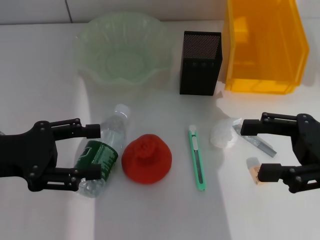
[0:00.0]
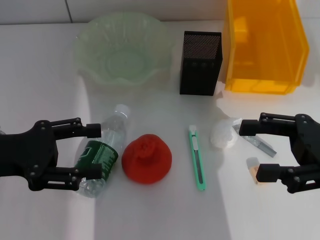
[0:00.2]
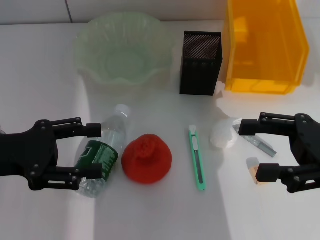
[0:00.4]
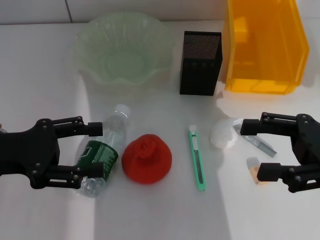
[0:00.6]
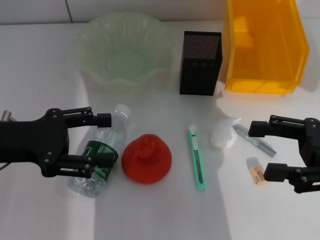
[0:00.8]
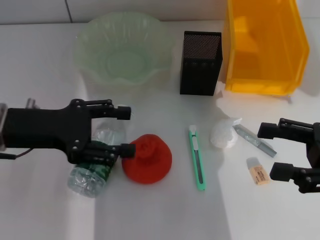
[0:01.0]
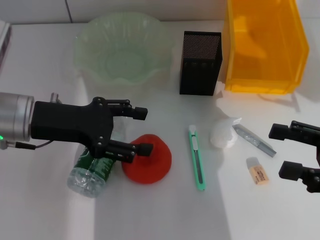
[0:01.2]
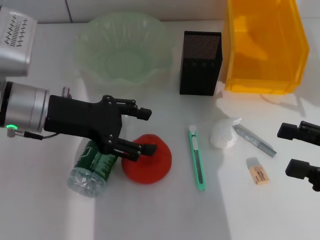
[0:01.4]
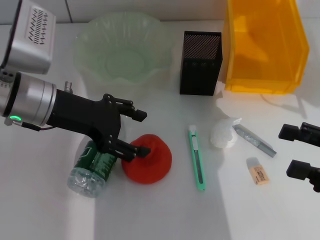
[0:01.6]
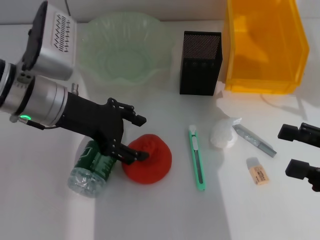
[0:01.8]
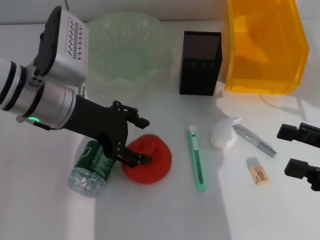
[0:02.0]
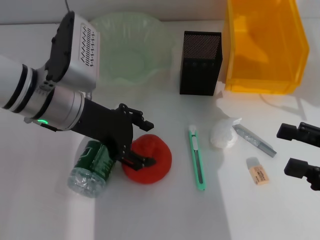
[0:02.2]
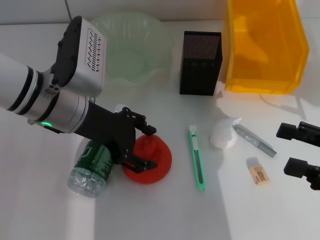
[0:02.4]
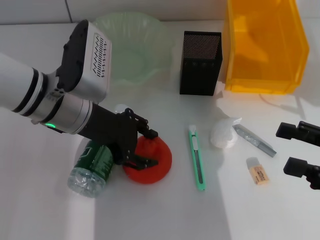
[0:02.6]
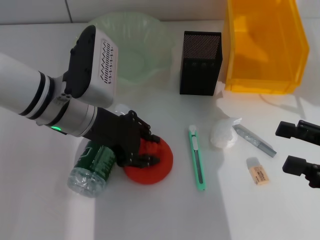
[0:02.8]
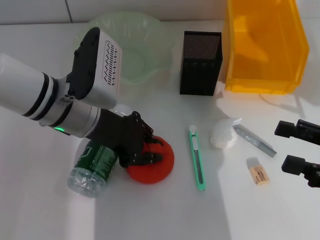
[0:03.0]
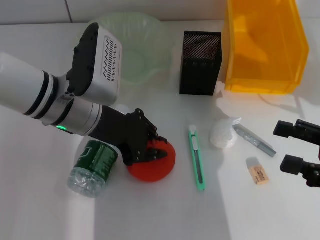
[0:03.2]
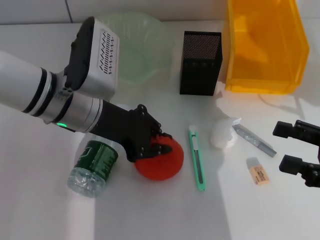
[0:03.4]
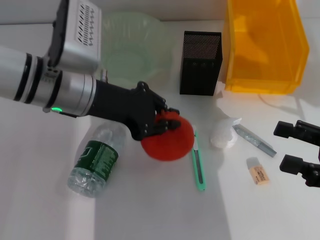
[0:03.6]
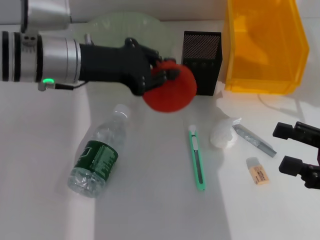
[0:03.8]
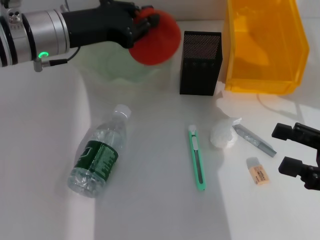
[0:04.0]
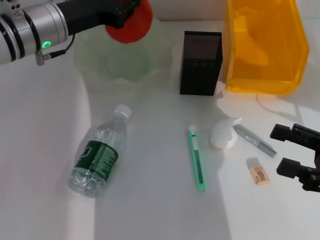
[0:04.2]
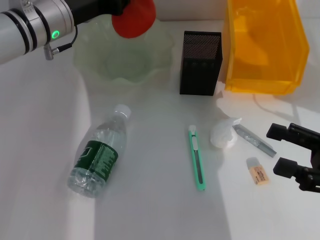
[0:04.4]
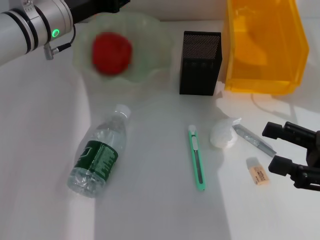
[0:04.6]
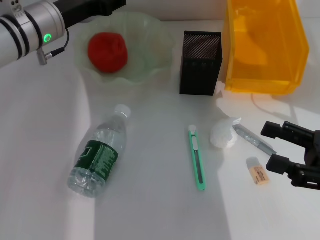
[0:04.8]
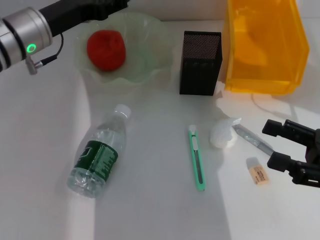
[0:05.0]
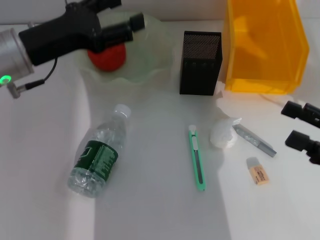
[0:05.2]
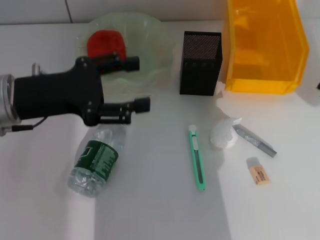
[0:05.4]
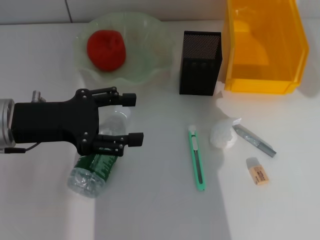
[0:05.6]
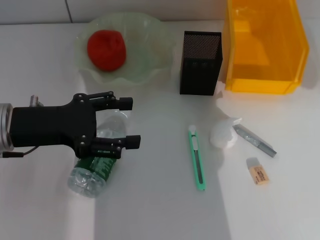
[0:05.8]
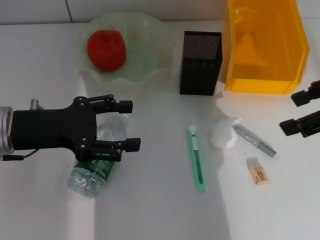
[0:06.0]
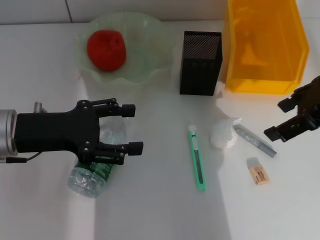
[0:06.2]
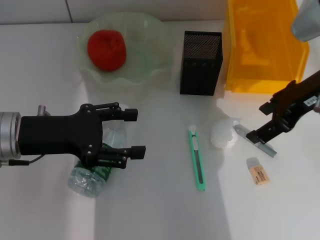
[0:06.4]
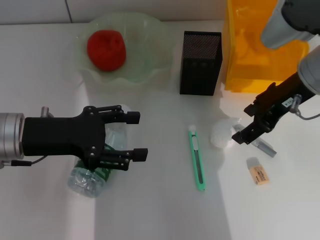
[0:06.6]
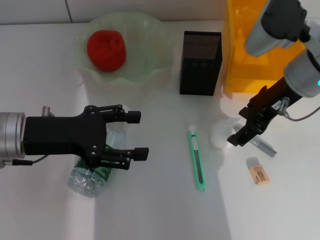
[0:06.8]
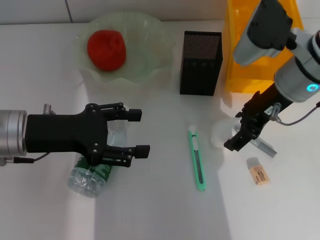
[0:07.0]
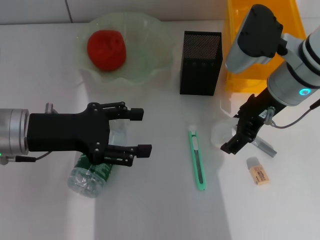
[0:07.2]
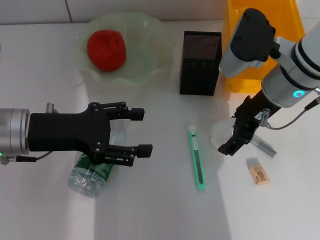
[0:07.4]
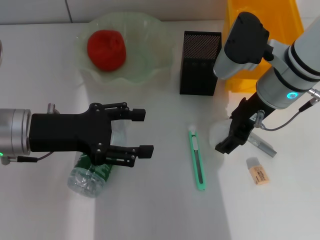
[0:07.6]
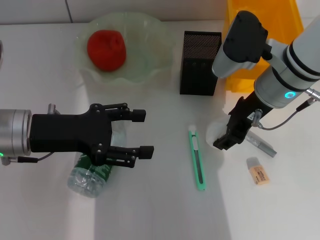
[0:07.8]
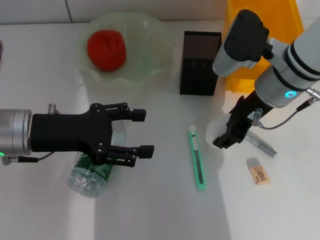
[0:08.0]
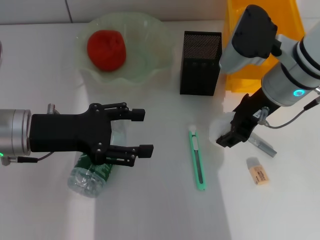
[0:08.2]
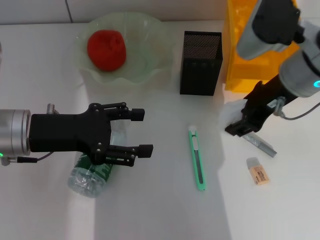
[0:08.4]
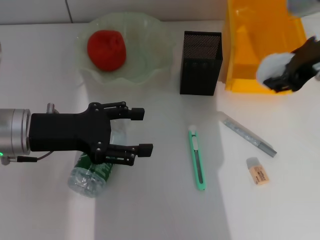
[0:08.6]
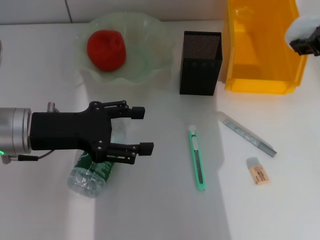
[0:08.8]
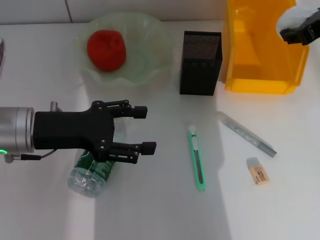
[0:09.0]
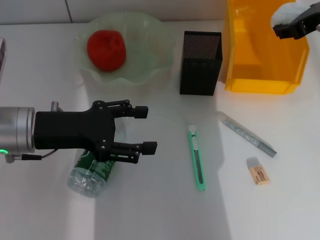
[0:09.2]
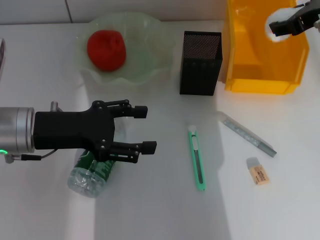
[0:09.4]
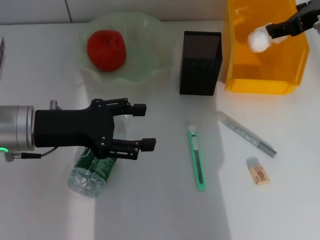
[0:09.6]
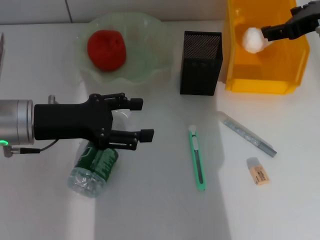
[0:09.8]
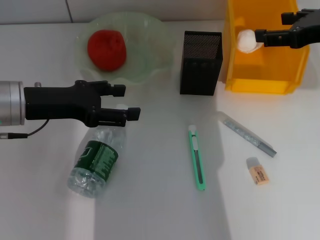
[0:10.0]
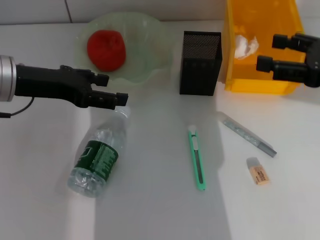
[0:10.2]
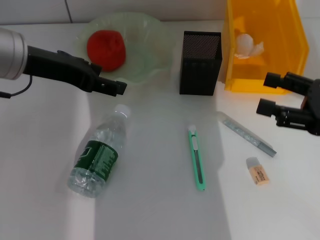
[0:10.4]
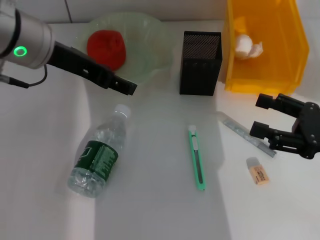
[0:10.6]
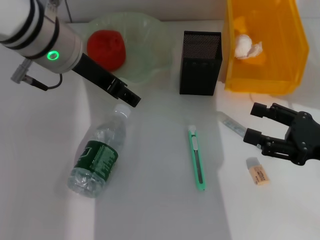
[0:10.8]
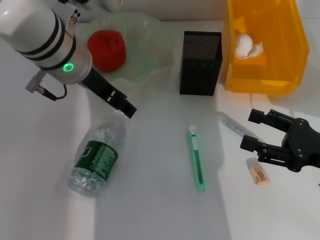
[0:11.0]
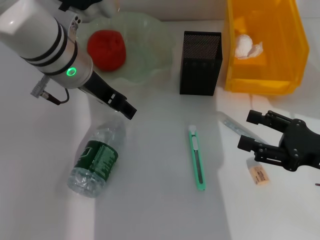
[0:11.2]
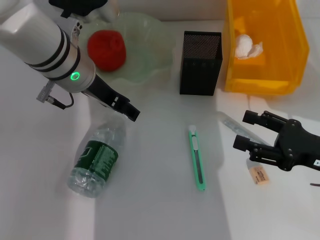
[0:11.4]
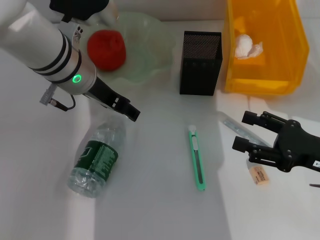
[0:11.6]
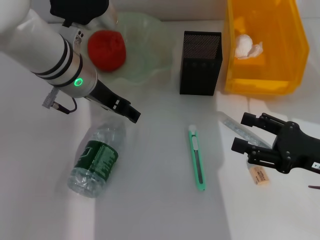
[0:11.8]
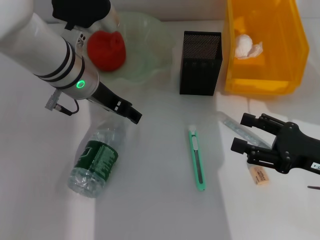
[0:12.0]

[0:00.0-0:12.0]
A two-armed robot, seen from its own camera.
Step, 0:00.0 to 0:02.8: Grab the orange with the left hand.
Step, 0:03.0 to 0:04.6: Place the orange into the fruit bowl with the left hand.
Step, 0:04.8 to 0:07.6: Grab the paper ball with the right hand.
Step, 0:07.8 to 0:09.8: Place the paper ball into the trash can with the right hand.
0:00.0 to 0:01.6: The left gripper goes approximately 10 cm to the right and forward; the right gripper moves about 5 cm.
0:01.6 to 0:03.0: The left gripper goes some 5 cm to the right, and closes up.
0:03.0 to 0:04.4: The left gripper is displaced forward by about 10 cm, and closes up.
0:04.4 to 0:06.0: The left gripper moves backward and to the left, about 15 cm, and opens up. Meanwhile the right gripper shifts some 20 cm upward and forward.
0:06.0 to 0:07.6: The right gripper shifts roughly 20 cm to the left, downward and forward.
0:07.6 to 0:09.0: The right gripper travels upward and to the right by about 15 cm.
0:09.0 to 0:10.4: The right gripper heads downward, backward and to the right, covering approximately 20 cm, and opens up; the left gripper heads upward, covering roughly 10 cm.
0:10.4 to 0:12.0: The left gripper travels to the right and downward by approximately 10 cm; the right gripper shifts approximately 5 cm downward.

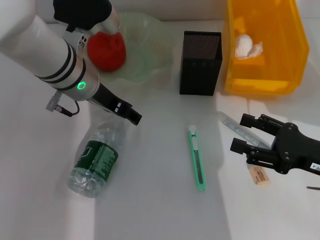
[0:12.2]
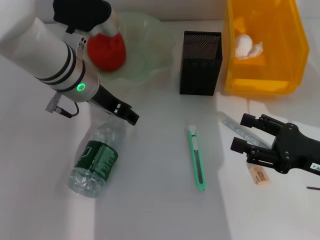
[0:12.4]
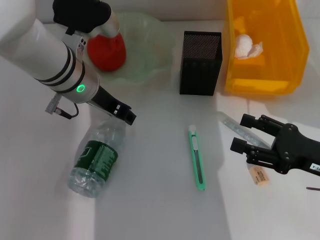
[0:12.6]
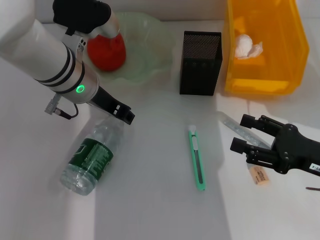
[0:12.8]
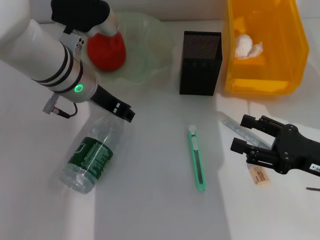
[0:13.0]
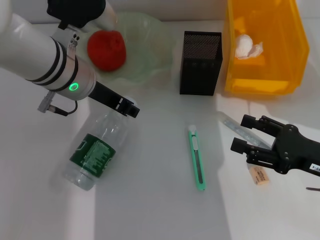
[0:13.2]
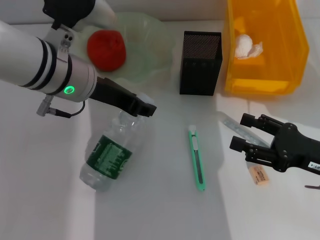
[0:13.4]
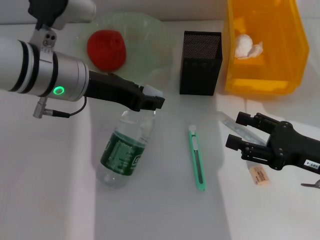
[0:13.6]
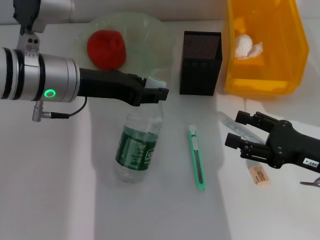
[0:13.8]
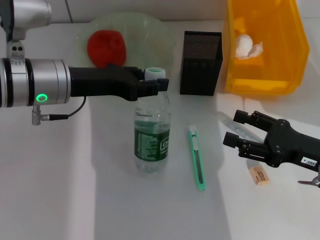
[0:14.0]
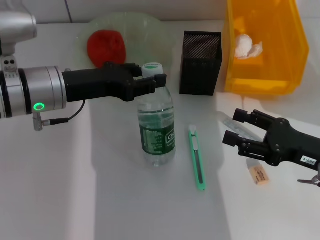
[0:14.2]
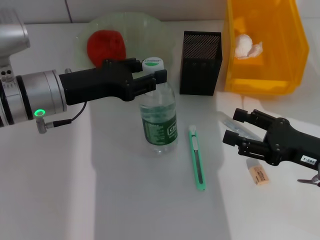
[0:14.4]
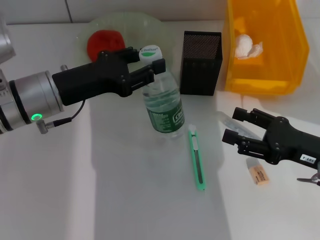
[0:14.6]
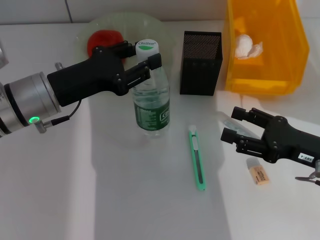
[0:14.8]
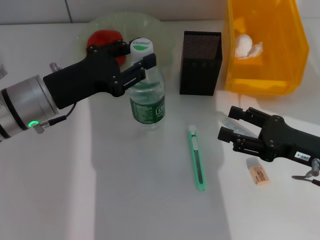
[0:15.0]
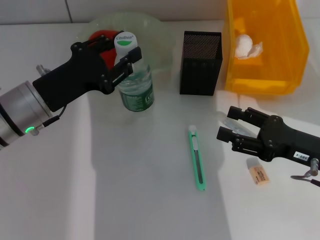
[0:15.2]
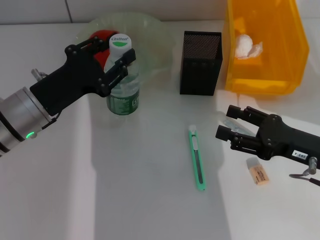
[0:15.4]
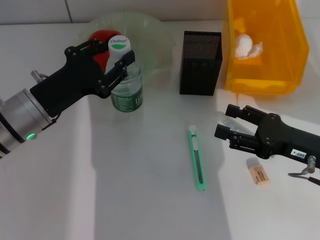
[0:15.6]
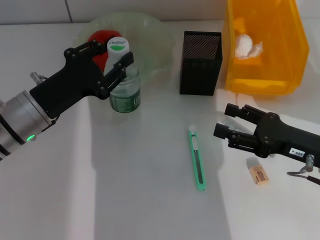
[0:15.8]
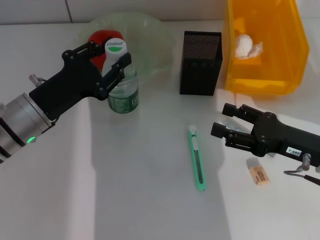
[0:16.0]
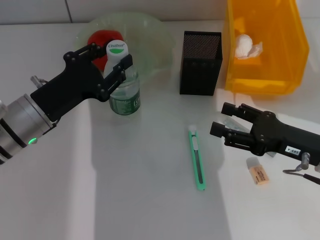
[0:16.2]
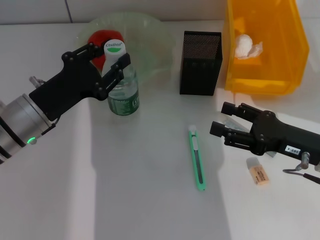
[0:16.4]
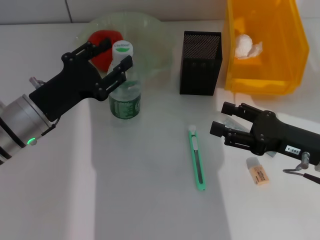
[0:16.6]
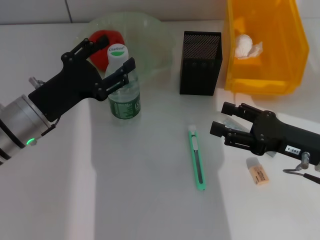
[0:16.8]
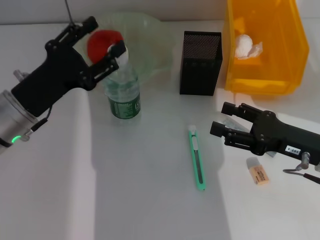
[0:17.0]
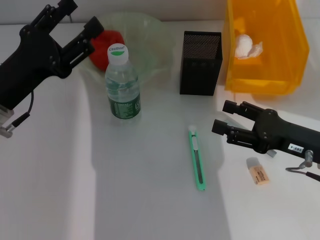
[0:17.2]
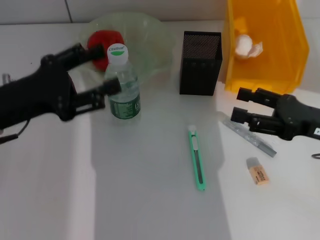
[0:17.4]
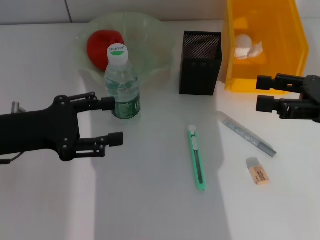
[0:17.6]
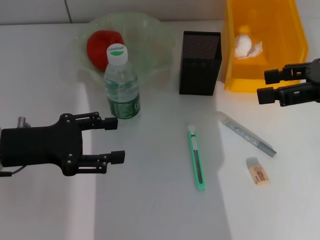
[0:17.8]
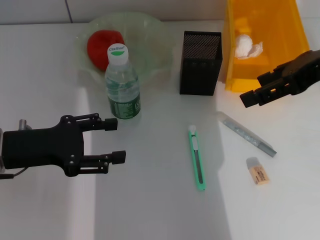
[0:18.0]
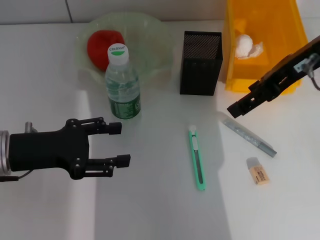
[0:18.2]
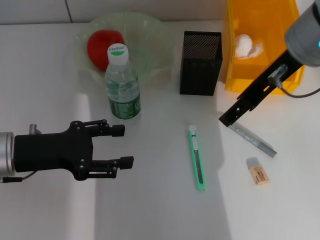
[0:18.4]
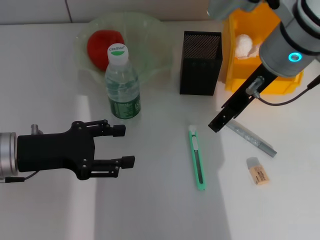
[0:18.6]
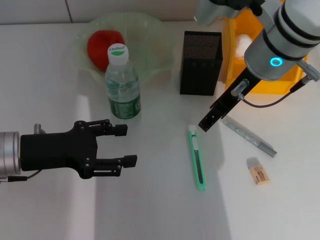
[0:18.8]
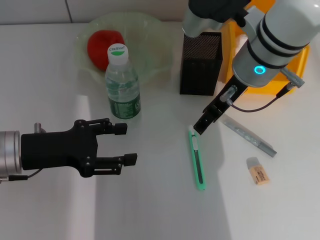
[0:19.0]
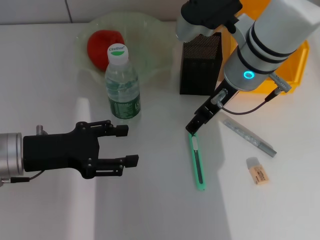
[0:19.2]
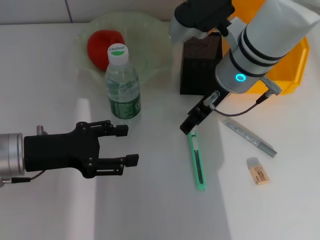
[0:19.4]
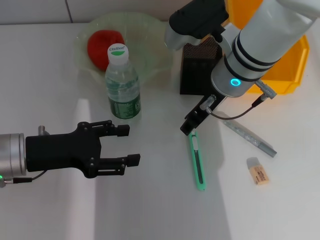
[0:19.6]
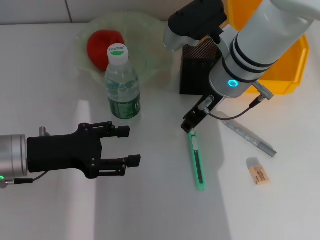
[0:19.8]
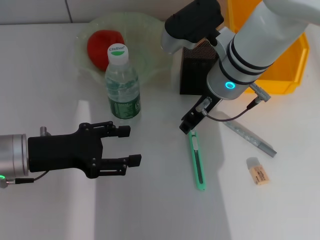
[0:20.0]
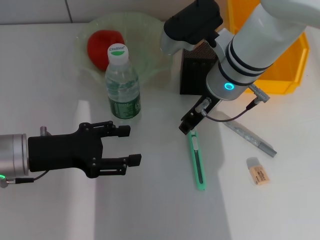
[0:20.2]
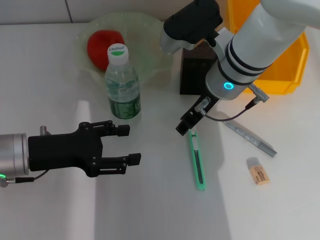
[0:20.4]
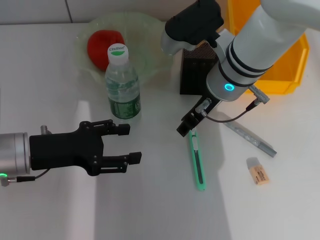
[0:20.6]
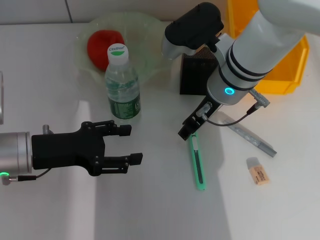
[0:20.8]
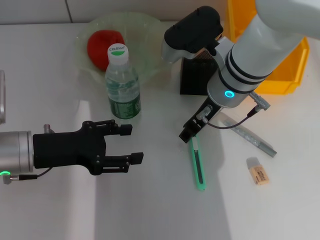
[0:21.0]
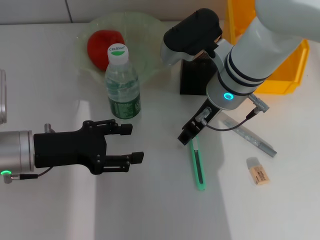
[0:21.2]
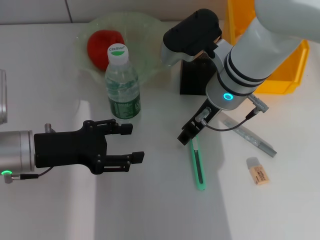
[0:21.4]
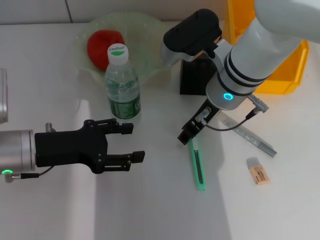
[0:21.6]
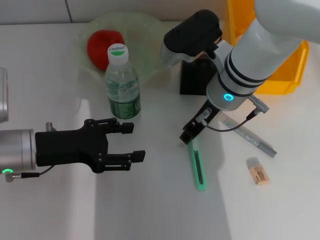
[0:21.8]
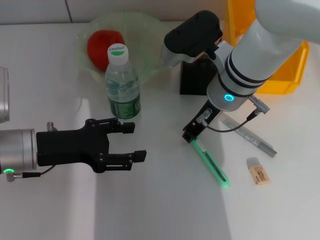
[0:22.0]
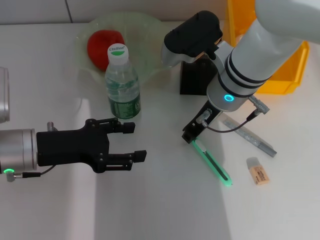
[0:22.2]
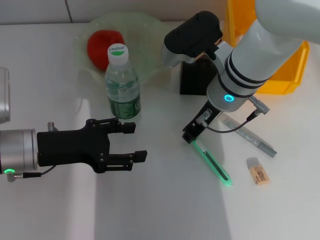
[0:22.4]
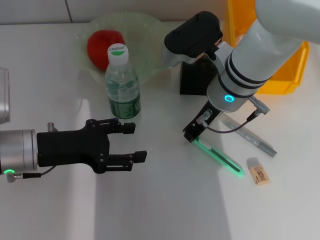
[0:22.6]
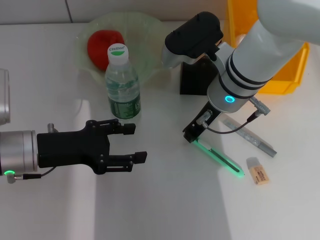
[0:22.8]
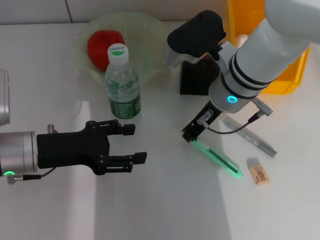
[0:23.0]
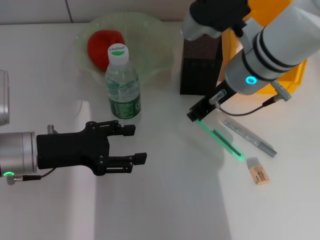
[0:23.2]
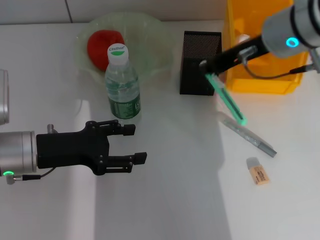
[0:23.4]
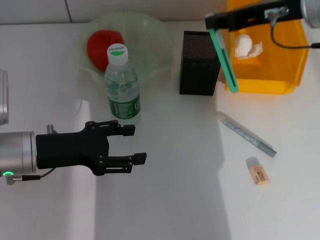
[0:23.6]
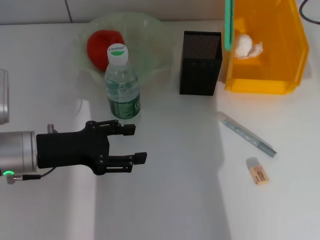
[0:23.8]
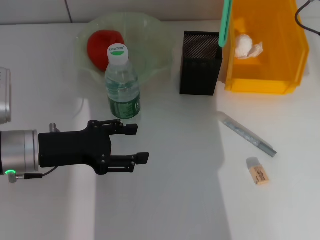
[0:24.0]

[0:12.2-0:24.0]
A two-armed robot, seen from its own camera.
Step, 0:12.8 to 0:16.6: Place the water bottle on the table with the left hand.
Step, 0:16.8 to 0:22.6: Grab the blue utility knife with the right hand.
0:12.2 to 0:13.6: The left gripper moves about 5 cm, and closes.
0:13.6 to 0:15.2: The left gripper goes roughly 10 cm downward and to the left.
0:15.2 to 0:16.6: The grippers make only small movements.
0:16.6 to 0:18.2: The right gripper shifts some 20 cm upward and forward; the left gripper shifts by roughly 5 cm, and opens.
0:18.2 to 0:19.6: The right gripper travels downward and to the left by roughly 15 cm.
0:19.6 to 0:21.0: There are only small adjustments of the grippers.
0:21.0 to 0:22.6: The right gripper closes up.
0:22.6 to 0:24.0: The right gripper goes about 20 cm to the right and upward.
